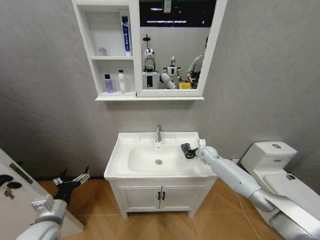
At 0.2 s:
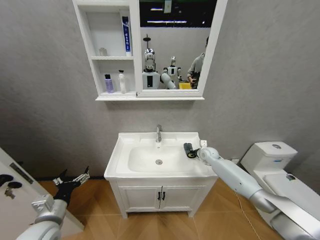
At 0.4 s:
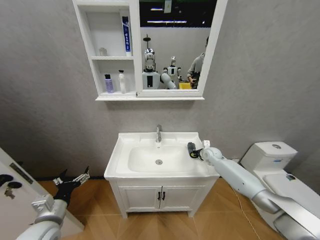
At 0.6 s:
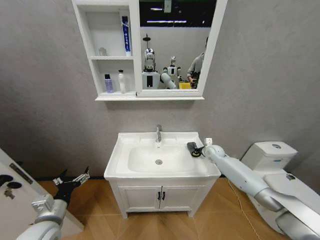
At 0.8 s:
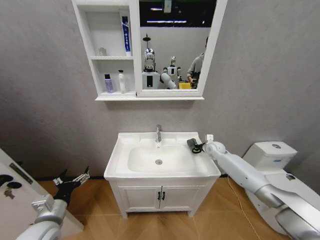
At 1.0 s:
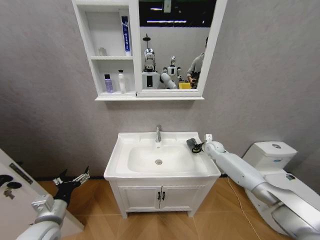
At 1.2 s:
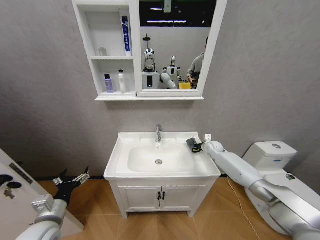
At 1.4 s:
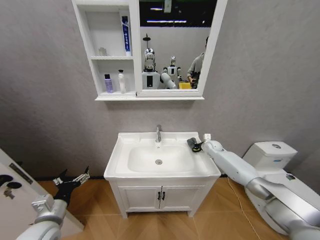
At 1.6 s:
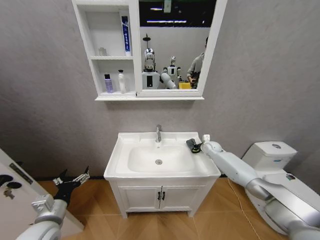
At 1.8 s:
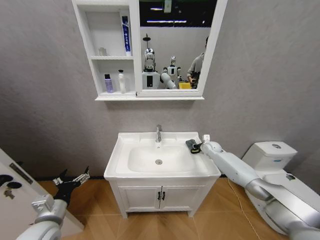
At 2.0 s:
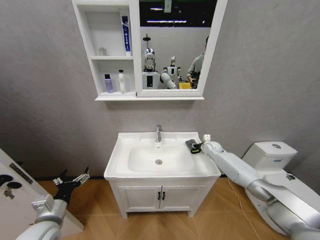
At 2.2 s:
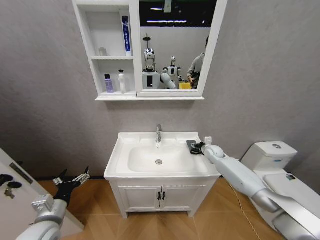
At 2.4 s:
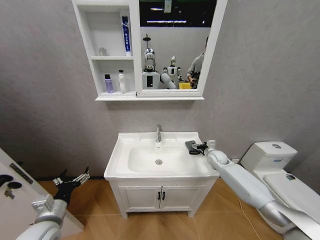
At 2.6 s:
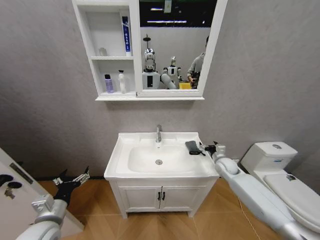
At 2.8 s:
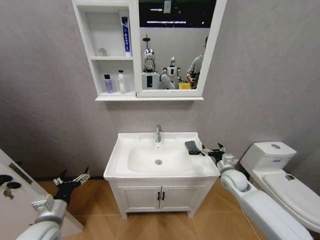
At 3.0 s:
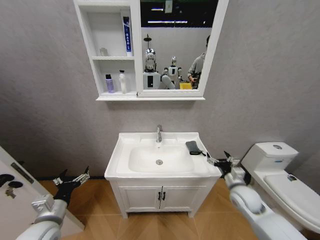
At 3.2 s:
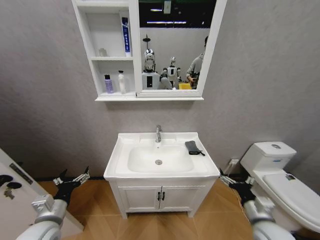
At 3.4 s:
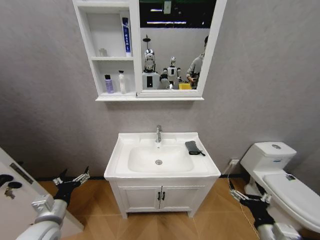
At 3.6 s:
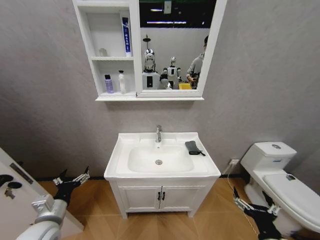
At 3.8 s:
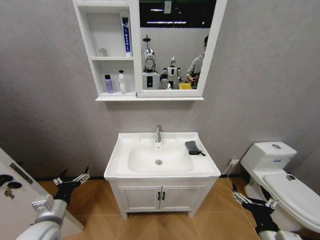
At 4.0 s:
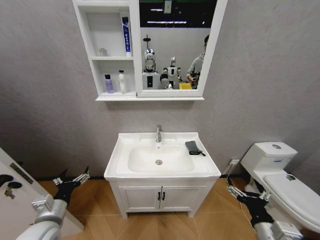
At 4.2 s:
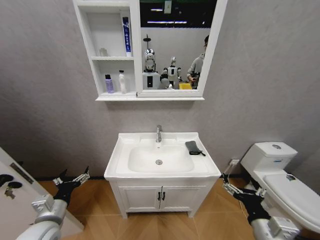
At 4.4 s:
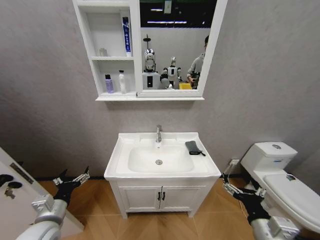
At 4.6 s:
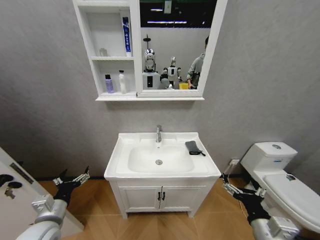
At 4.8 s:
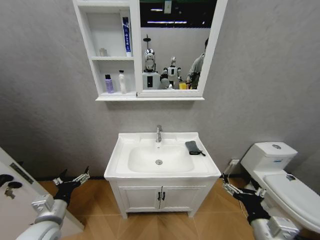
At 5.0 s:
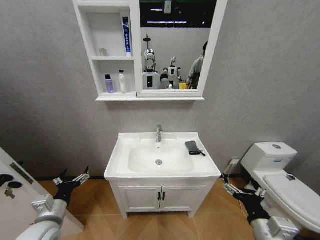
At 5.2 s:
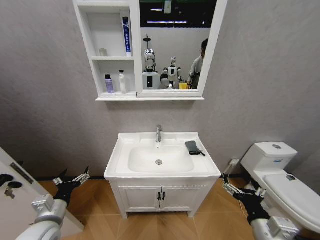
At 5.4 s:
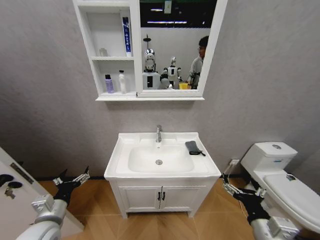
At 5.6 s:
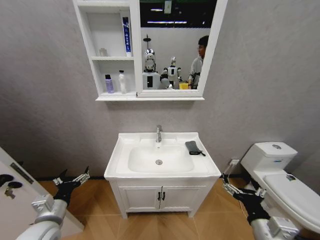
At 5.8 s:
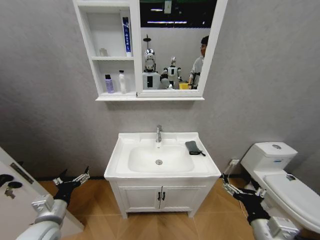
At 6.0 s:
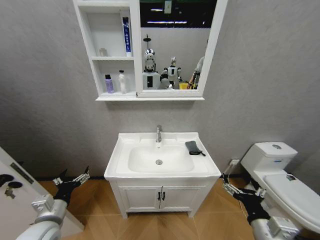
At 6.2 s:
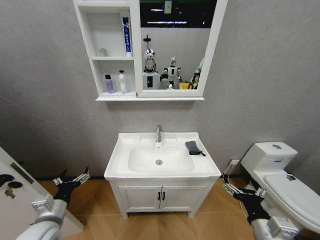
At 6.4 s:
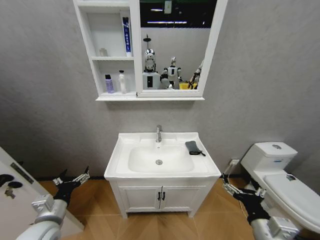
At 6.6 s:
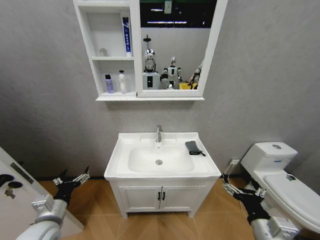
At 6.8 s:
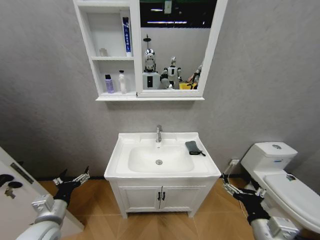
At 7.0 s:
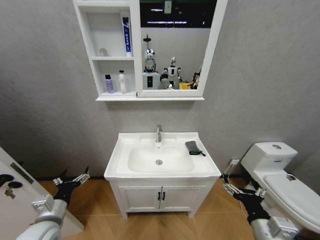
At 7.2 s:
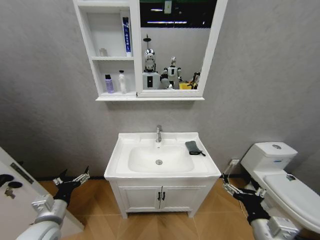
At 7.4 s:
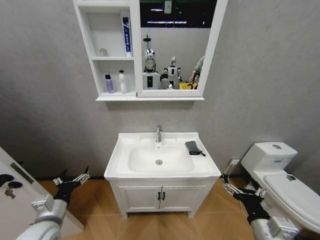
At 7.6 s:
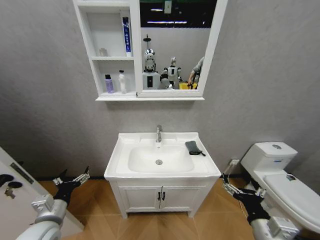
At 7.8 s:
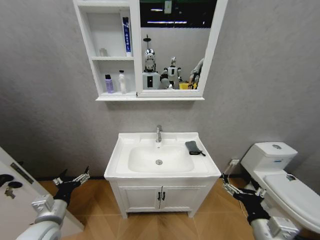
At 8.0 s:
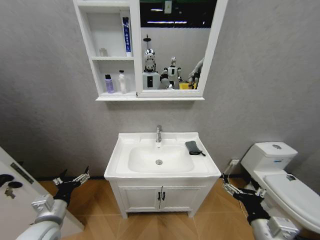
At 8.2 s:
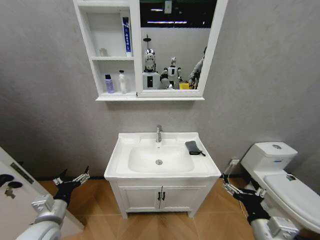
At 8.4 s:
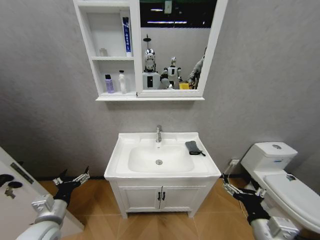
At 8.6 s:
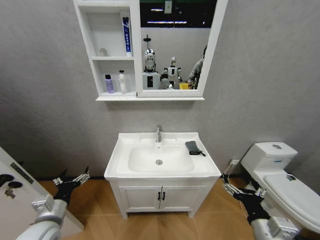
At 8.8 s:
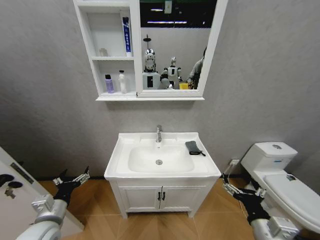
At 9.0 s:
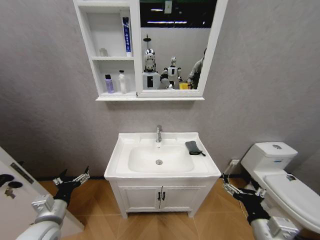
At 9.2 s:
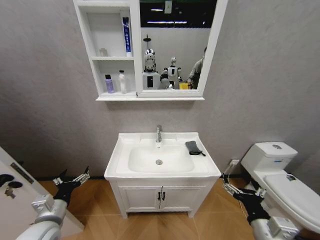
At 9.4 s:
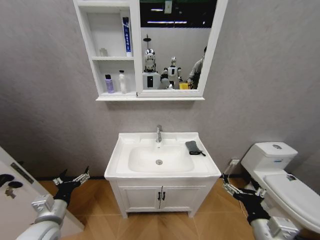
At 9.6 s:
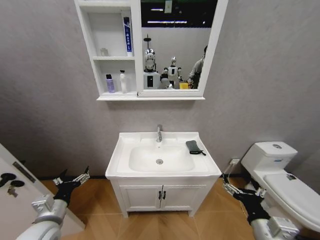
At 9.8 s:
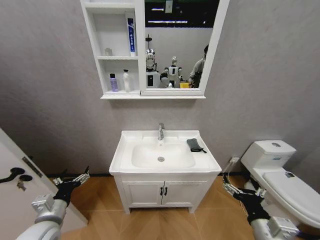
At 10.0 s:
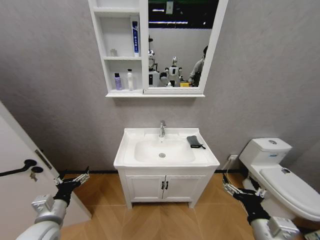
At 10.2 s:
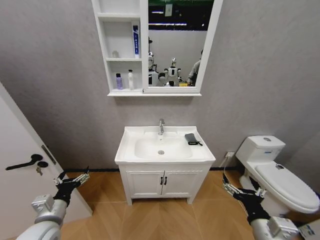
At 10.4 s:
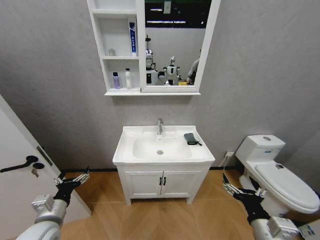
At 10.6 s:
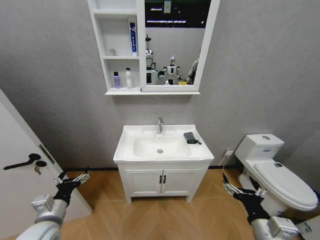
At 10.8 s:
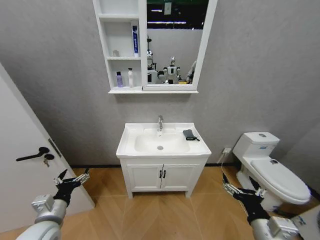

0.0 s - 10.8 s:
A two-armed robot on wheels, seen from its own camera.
Task of the whole recording: Move facial cleanser and shampoo from washbasin to cabinet, then wipe washbasin with towel.
0.0 s - 1.6 s: The right gripper ends up some 5 cm from where it was.
1.6 s - 3.0 s: The right gripper shifts approximately 25 cm backward, and opens its fingers.
3.0 s - 4.6 s: The right gripper moves backward, about 20 cm.
4.6 s - 9.2 s: Both grippers stay put.

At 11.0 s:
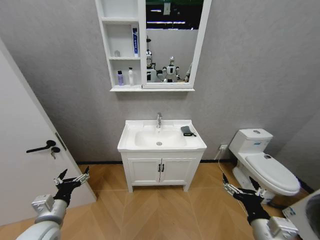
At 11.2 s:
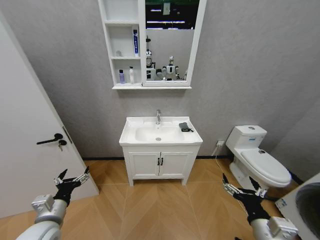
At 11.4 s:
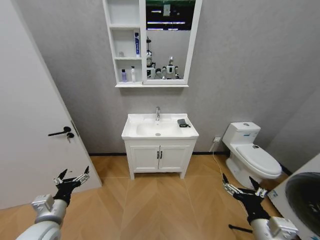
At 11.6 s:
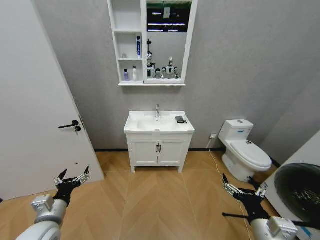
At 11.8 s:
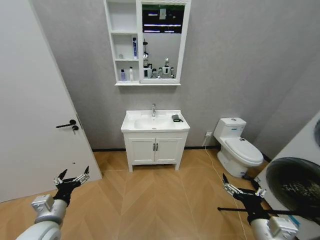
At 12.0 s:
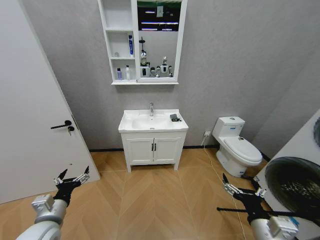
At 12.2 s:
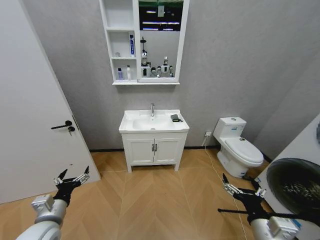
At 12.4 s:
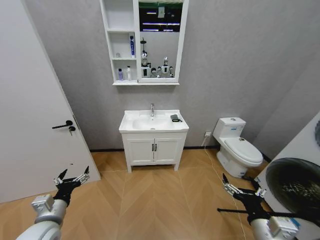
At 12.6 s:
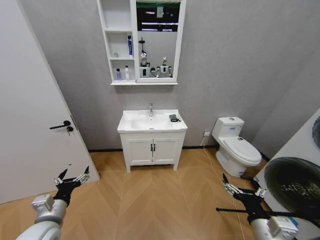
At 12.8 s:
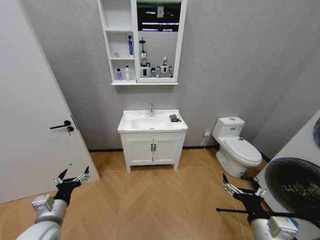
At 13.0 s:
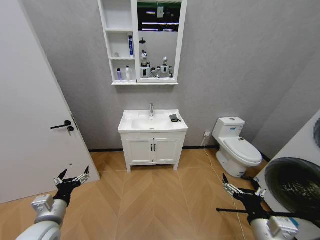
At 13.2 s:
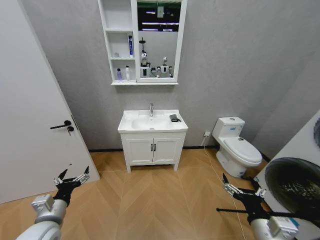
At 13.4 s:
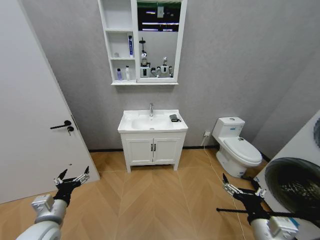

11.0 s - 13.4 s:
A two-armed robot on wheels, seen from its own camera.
Task of the whole recording: Move facial cleanser and shampoo from washbasin to cabinet, then wipe washbasin with towel.
12.2 s - 13.4 s: Both grippers stay put.

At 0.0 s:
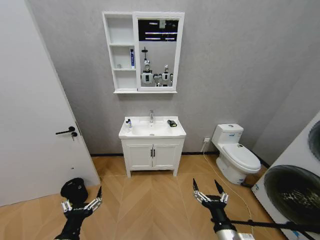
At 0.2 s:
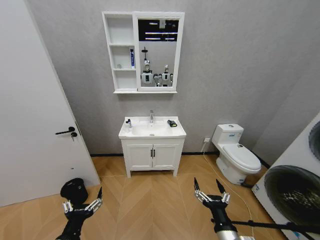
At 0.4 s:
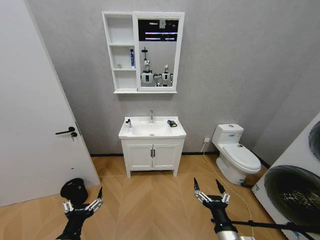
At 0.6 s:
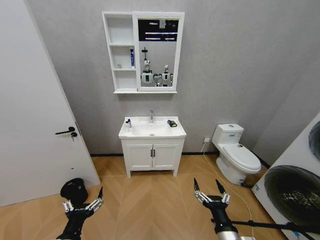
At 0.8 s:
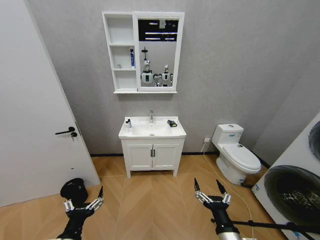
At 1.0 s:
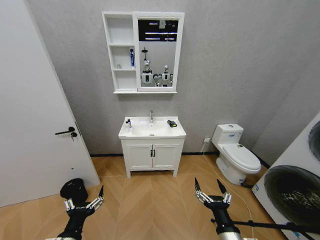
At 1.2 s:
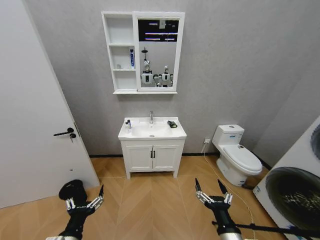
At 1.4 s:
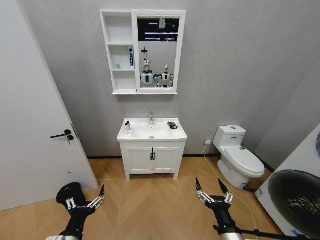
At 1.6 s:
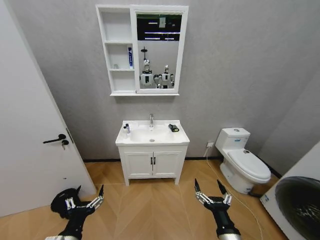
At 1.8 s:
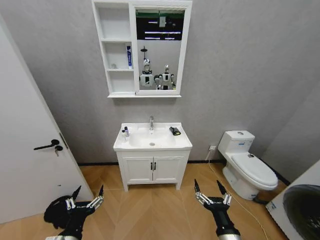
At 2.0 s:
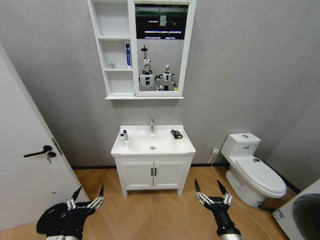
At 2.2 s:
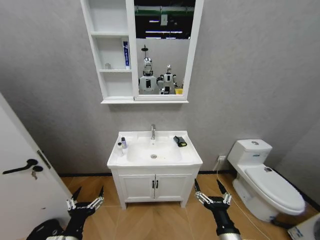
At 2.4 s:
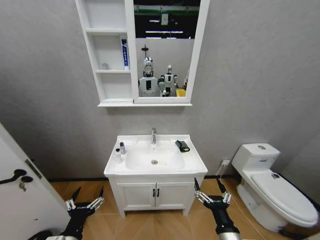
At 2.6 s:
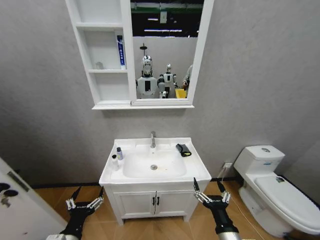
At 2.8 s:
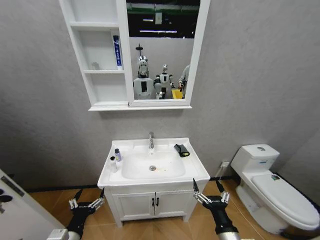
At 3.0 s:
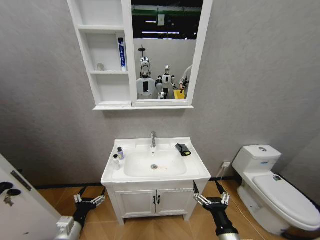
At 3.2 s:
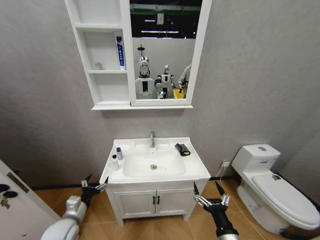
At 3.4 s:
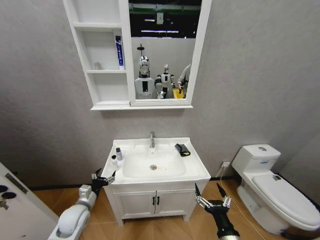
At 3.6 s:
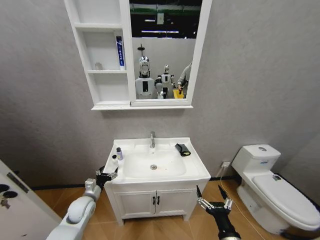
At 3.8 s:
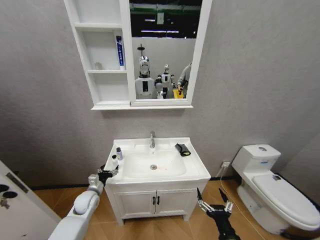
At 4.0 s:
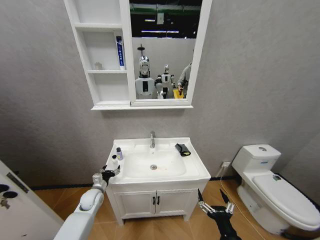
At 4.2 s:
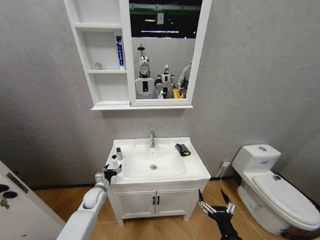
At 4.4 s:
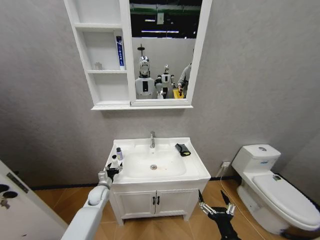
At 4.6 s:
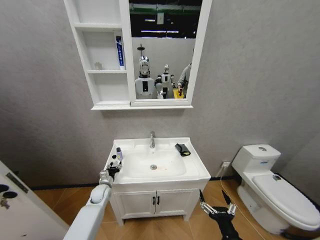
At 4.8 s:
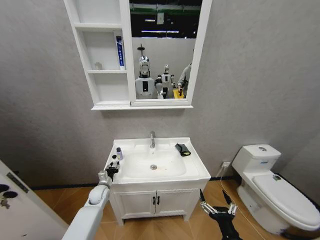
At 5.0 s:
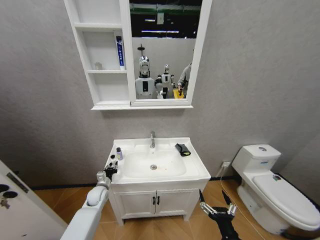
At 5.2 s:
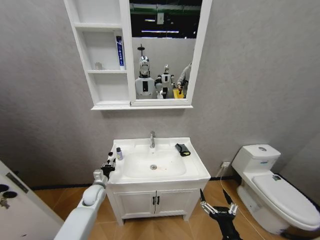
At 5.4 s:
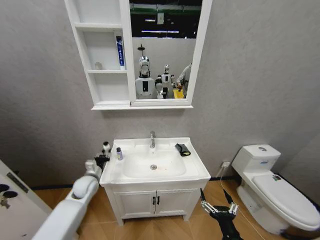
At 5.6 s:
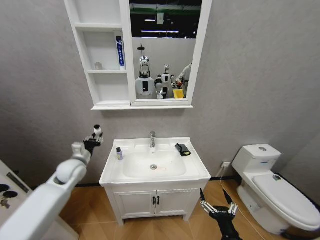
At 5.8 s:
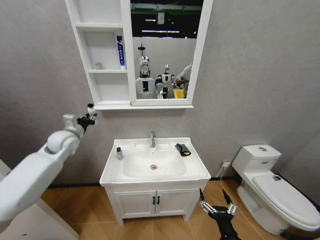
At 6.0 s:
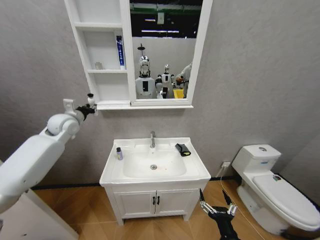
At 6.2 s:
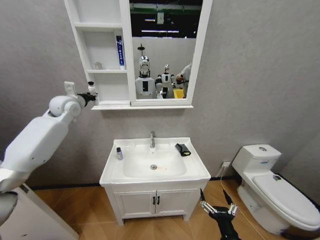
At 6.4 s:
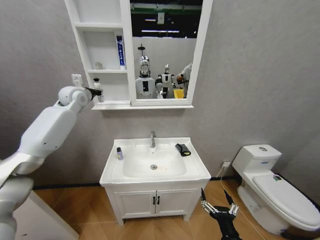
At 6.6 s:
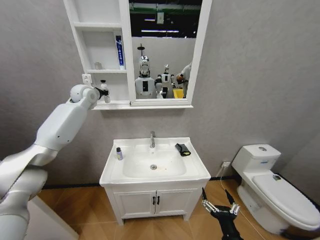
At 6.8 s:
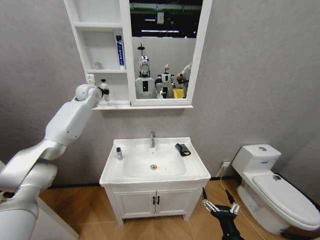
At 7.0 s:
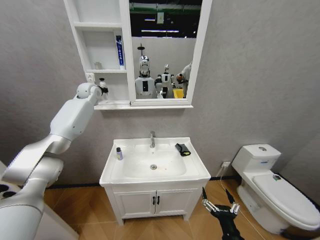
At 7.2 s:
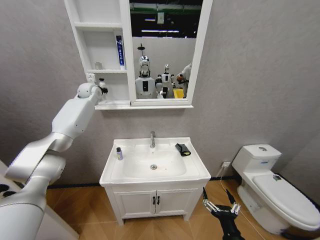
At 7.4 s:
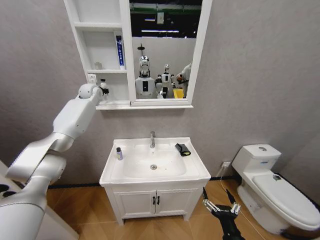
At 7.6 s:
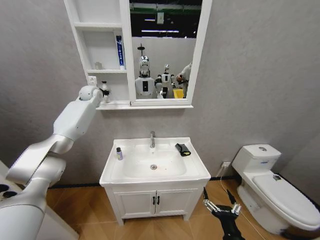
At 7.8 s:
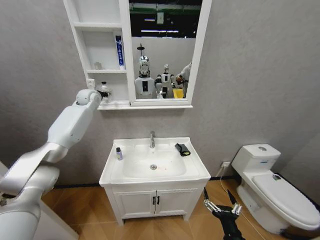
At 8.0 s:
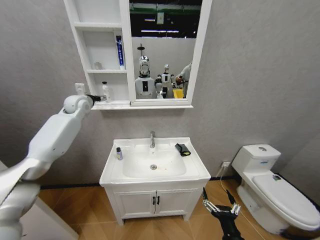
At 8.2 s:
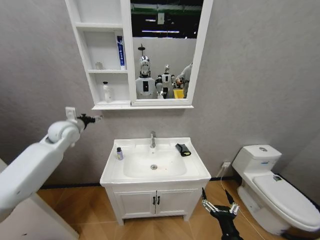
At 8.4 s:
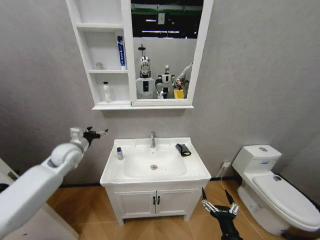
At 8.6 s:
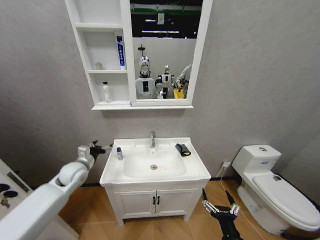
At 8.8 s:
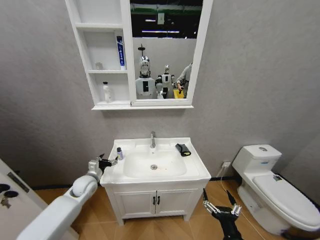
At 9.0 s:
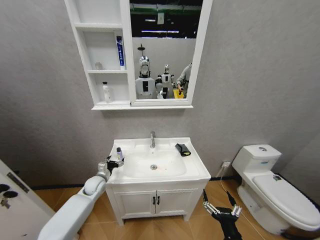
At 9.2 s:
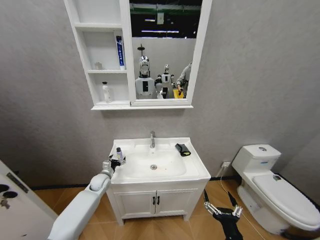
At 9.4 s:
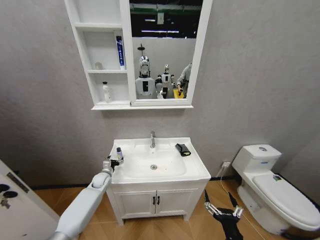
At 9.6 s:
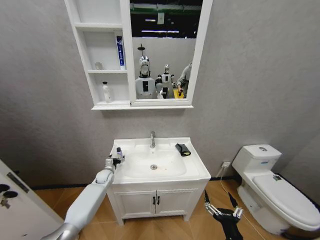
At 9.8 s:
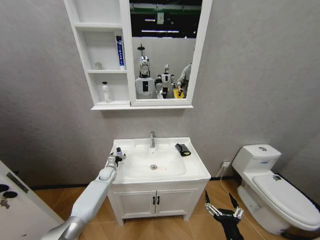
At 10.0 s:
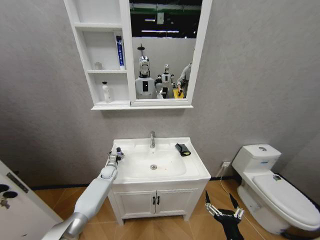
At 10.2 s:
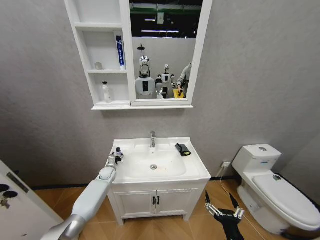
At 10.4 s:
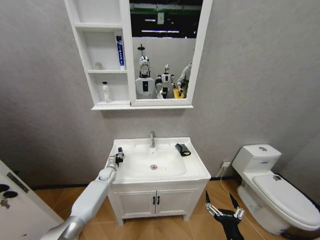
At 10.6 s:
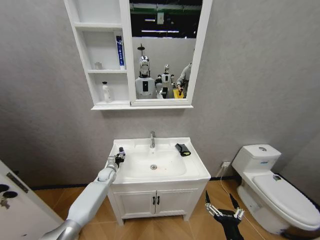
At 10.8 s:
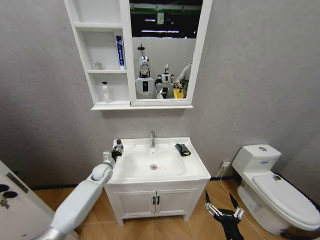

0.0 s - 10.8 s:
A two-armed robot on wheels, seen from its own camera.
Task of the whole recording: Move facial cleanser and shampoo from washbasin to cabinet, then wipe washbasin with towel.
1.6 s - 3.0 s: The left gripper heads downward, covering approximately 5 cm.
3.0 s - 4.6 s: The left gripper moves forward and downward, some 30 cm, and closes up.
4.6 s - 6.2 s: The left gripper goes roughly 40 cm upward, and closes.
6.2 s - 7.8 s: The left gripper moves forward, some 10 cm, and opens its fingers.
7.8 s - 9.2 s: The left gripper shifts approximately 40 cm downward and backward.
9.2 s - 10.8 s: The left gripper closes.
